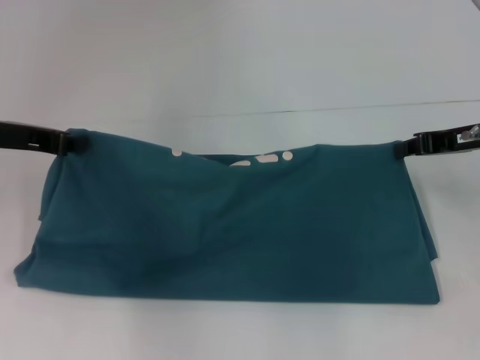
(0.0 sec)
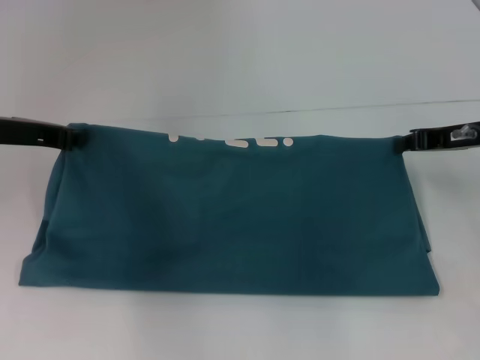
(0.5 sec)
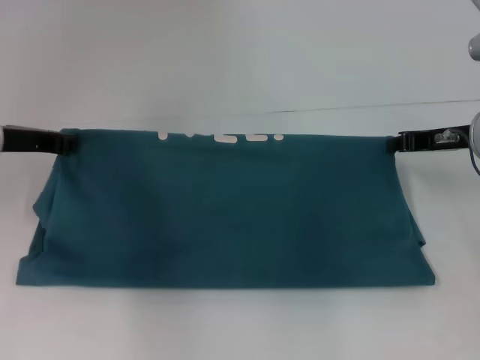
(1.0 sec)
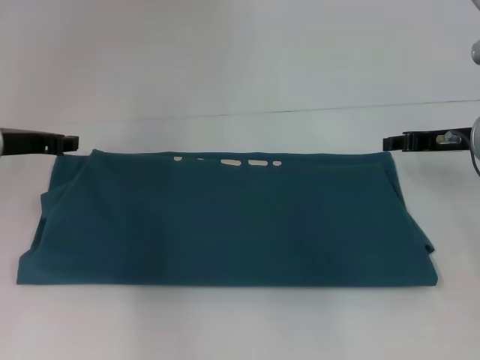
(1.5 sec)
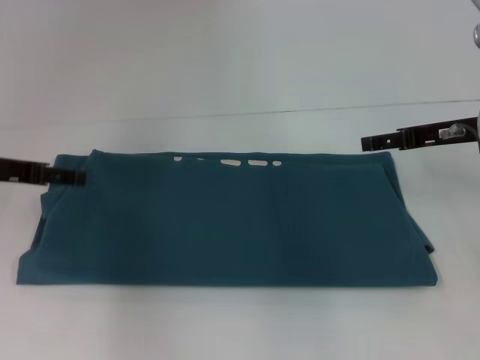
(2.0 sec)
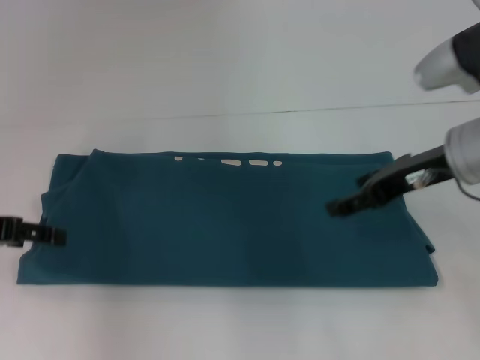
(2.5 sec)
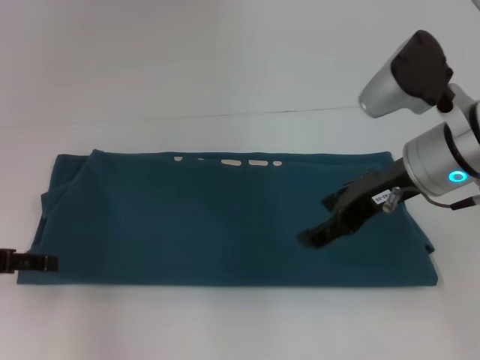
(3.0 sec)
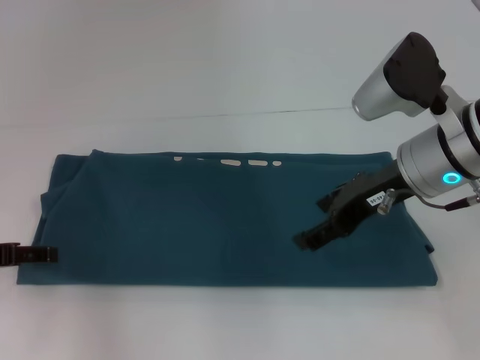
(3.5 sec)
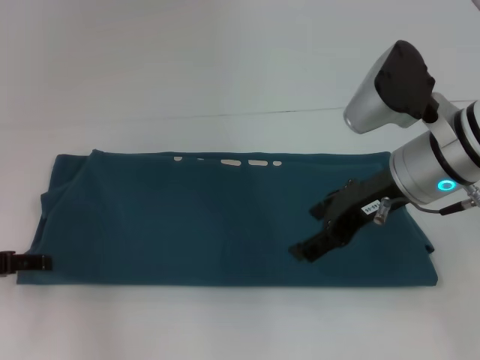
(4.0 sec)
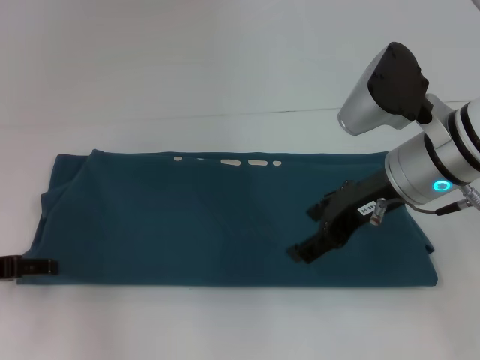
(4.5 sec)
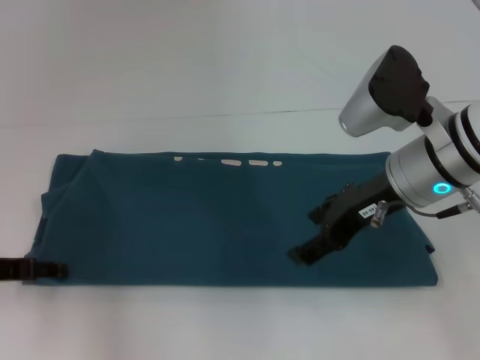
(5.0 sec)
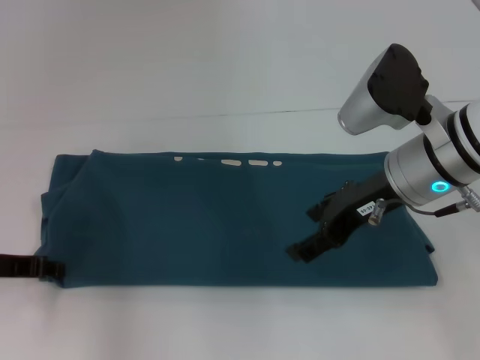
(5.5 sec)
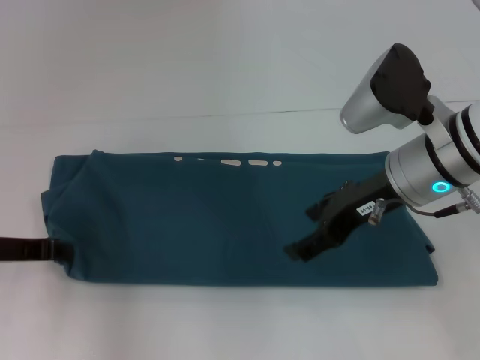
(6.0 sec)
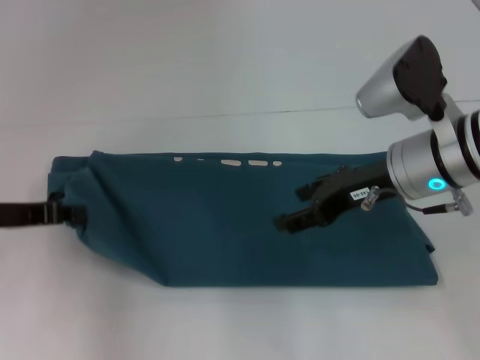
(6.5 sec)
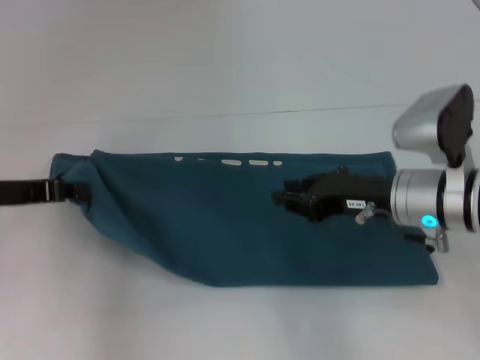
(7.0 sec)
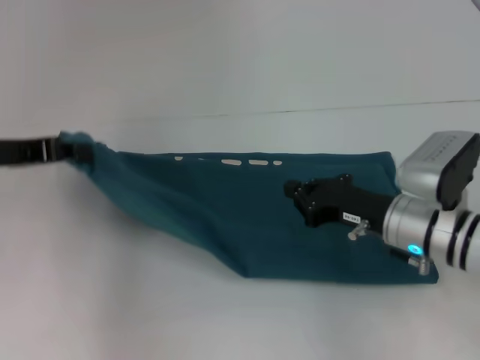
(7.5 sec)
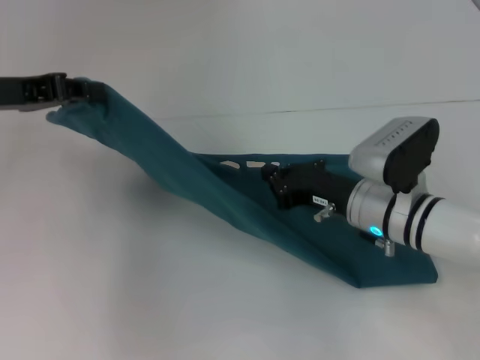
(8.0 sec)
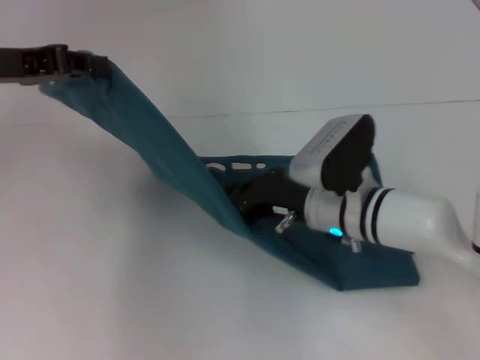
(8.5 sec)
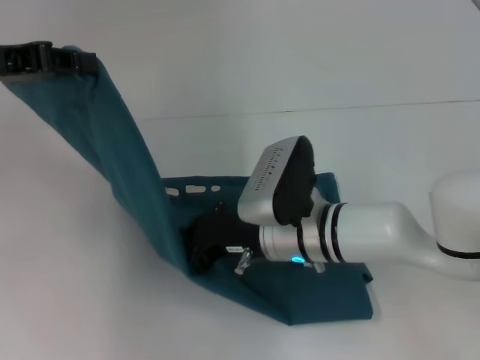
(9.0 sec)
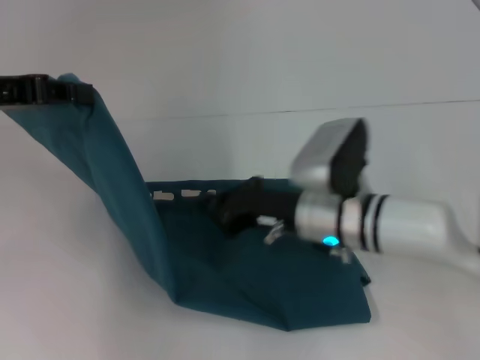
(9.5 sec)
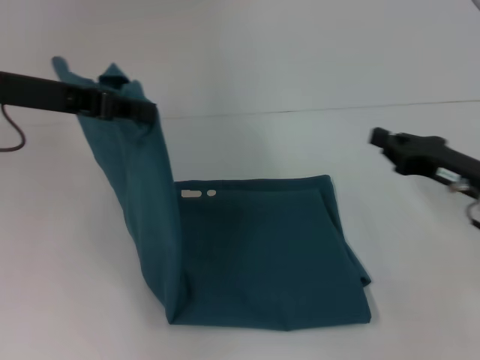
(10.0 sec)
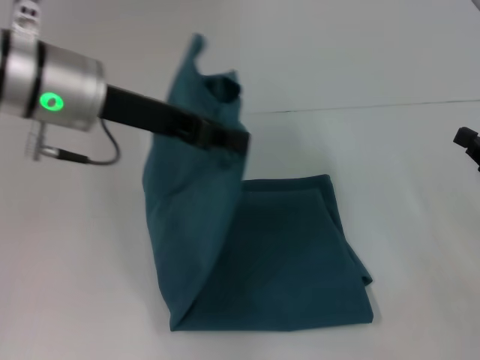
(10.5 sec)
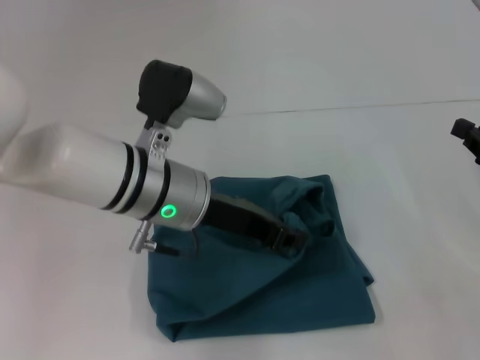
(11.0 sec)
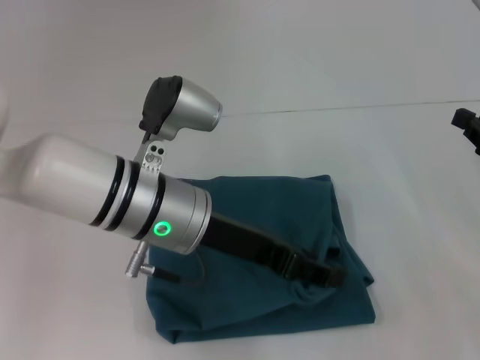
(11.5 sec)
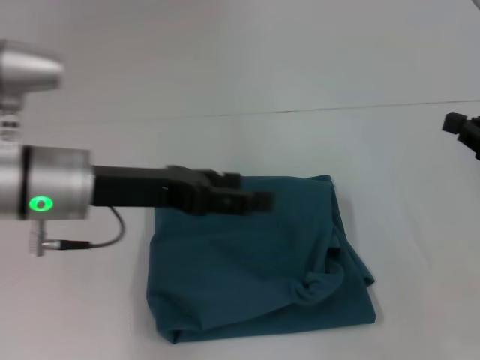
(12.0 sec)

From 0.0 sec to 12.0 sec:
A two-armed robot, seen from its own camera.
Step, from 2.0 sec to 8.5 sec: Press the middle of the clothes with your right hand.
Step, from 9.0 sec to 11.5 sec: Fold the clothes to the left.
From 0.0 sec to 2.0 sec: The right gripper opens its fingers; the left gripper opens its fingers.
From 2.0 sec to 4.0 sec: The left gripper is displaced backward and downward by approximately 10 cm, while the right gripper shifts about 10 cm to the left.
From 4.0 sec to 6.0 sec: The left gripper closes up.
From 6.0 sec to 8.0 sec: The right gripper heads downward, covering some 10 cm, and closes up. The left gripper travels upward and forward by about 15 cm.
From 8.0 sec to 10.0 sec: The right gripper heads to the right, covering some 10 cm.
From 10.0 sec to 12.0 sec: The left gripper shifts roughly 10 cm downward, to the right and backward, and opens its fingers, while the right gripper is displaced to the right and upward by about 10 cm.

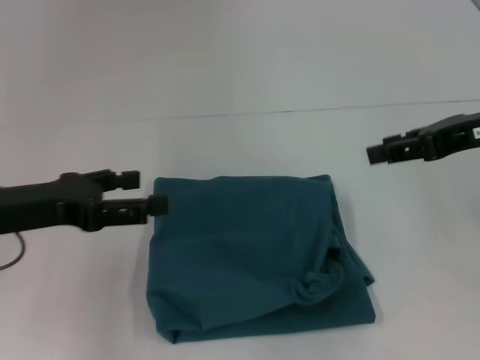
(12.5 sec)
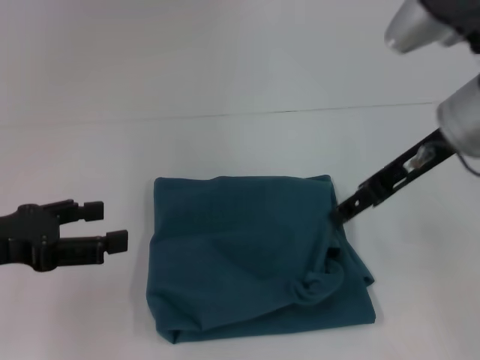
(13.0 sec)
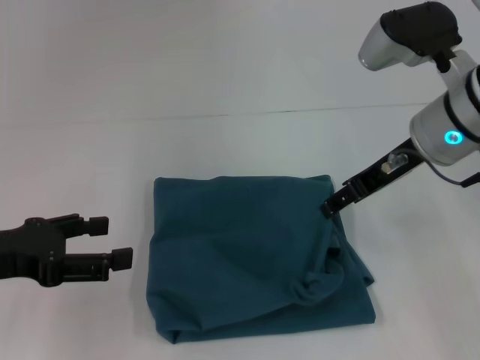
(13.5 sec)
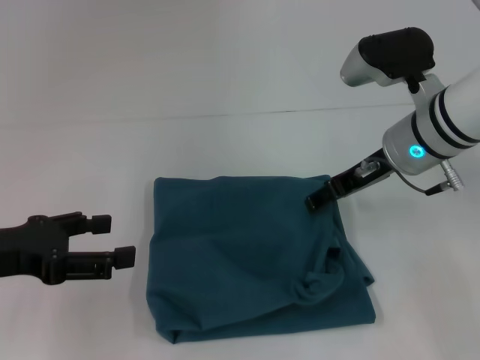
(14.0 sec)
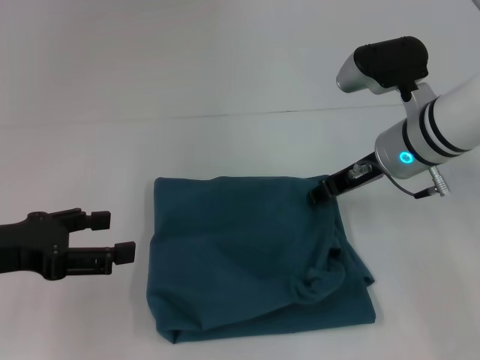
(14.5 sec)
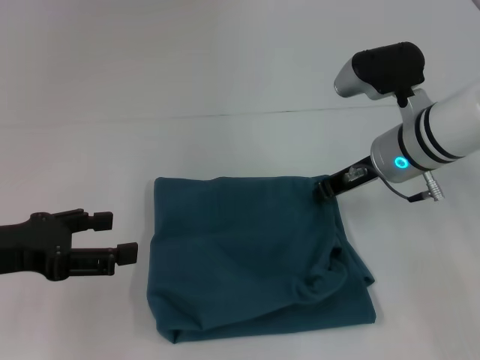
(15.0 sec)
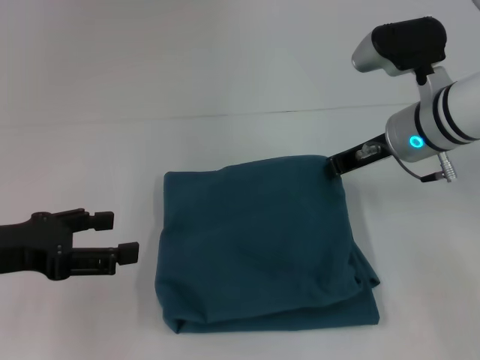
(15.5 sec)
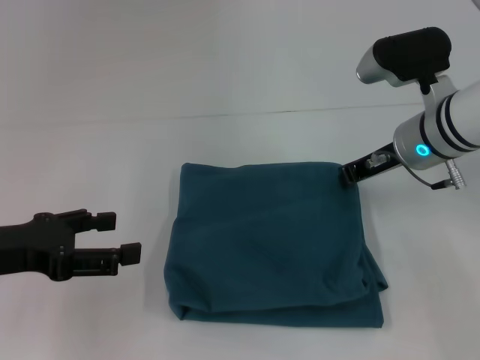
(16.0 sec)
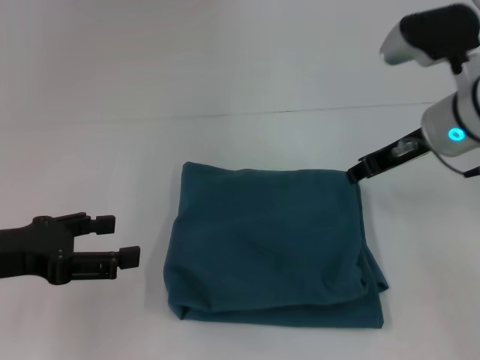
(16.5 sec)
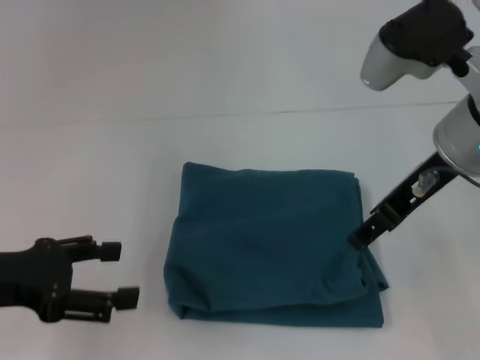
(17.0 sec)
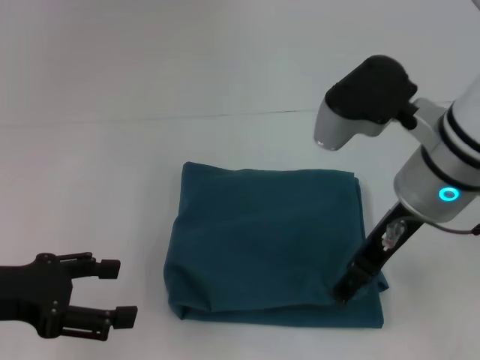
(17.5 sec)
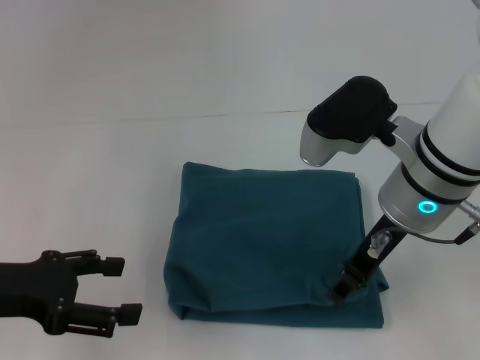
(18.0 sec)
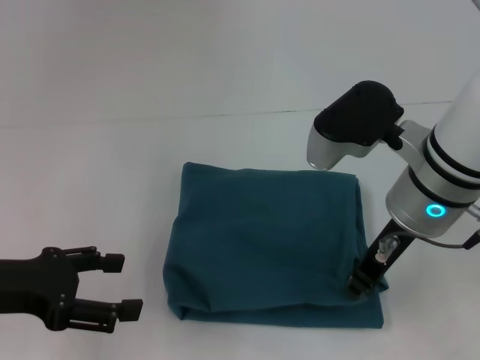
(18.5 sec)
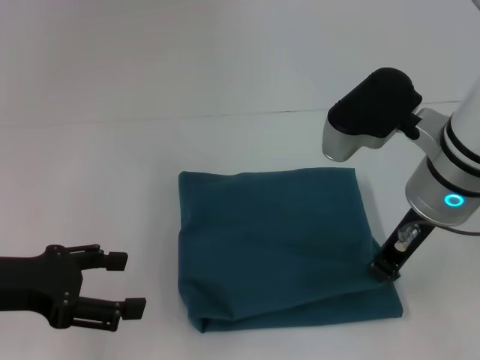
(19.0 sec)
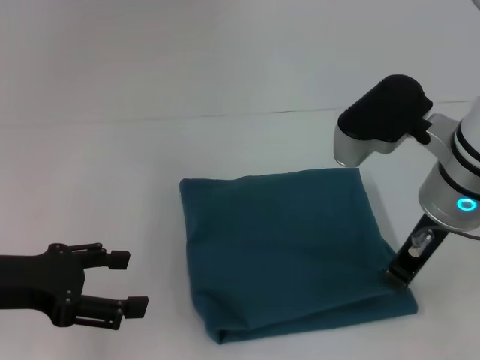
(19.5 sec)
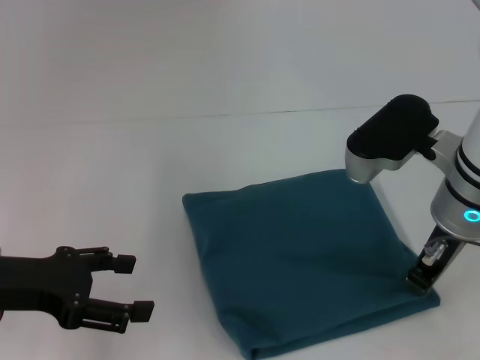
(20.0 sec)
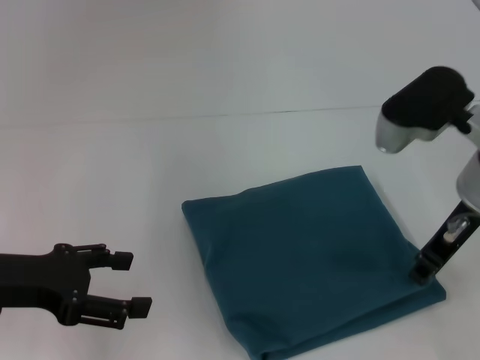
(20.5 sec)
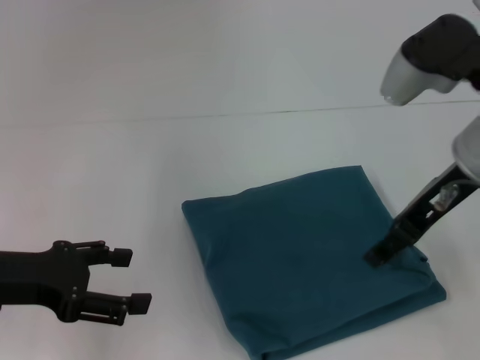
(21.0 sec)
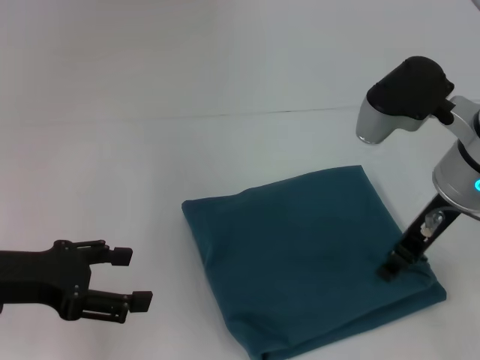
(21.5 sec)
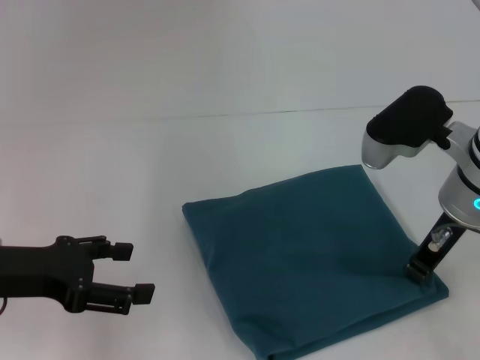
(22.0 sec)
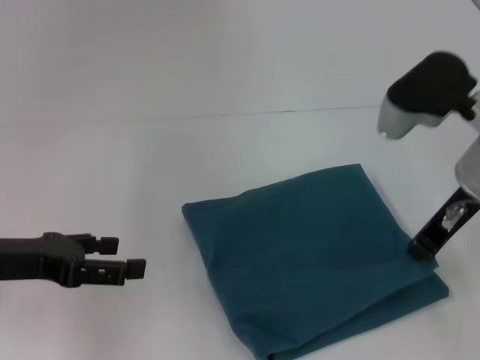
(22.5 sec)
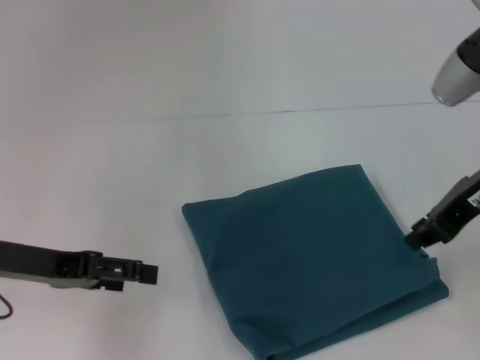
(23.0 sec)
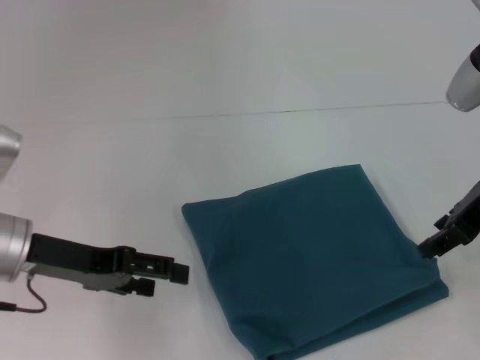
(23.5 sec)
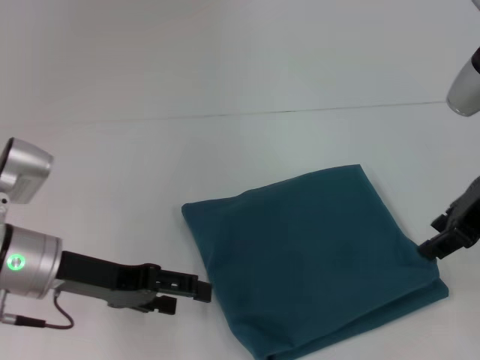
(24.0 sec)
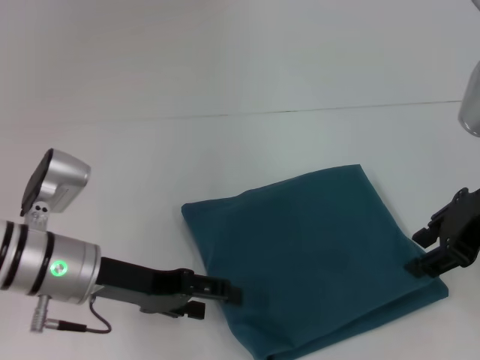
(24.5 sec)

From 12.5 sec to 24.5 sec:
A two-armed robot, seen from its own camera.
From 12.5 sec to 14.5 sec: The right gripper moves to the left, downward and forward, some 15 cm.
From 14.5 sec to 16.5 sec: The right gripper moves roughly 5 cm, and closes.
From 16.5 sec to 18.5 sec: The right gripper goes some 10 cm to the left and backward, and opens and closes again.
From 18.5 sec to 20.5 sec: The right gripper shifts about 5 cm to the right.
From 20.5 sec to 22.5 sec: The right gripper opens, then closes once more.
From 22.5 sec to 24.5 sec: The right gripper shifts by approximately 5 cm, and opens up. Meanwhile the left gripper travels to the right by some 10 cm.

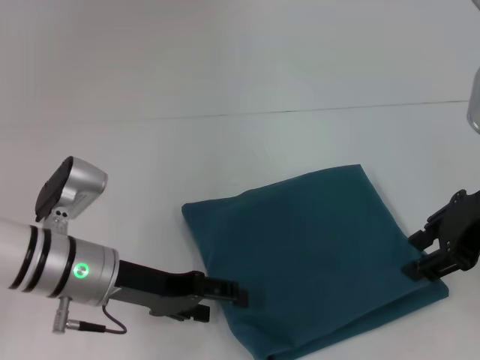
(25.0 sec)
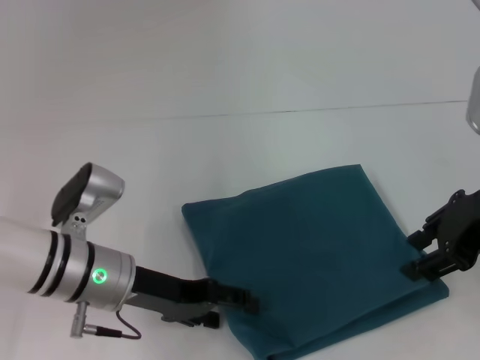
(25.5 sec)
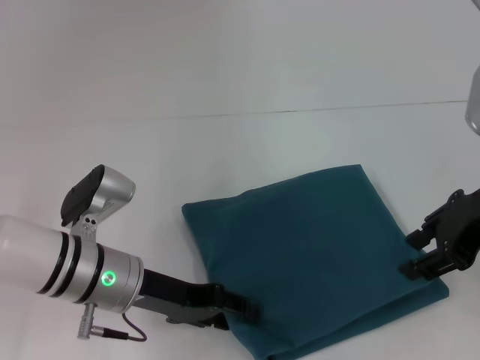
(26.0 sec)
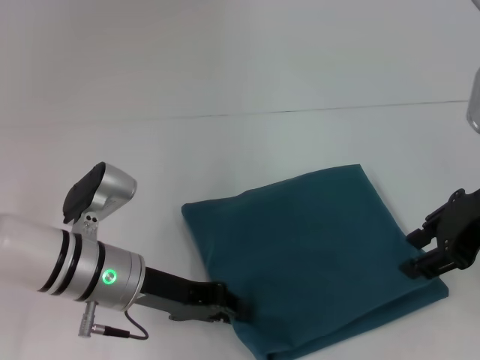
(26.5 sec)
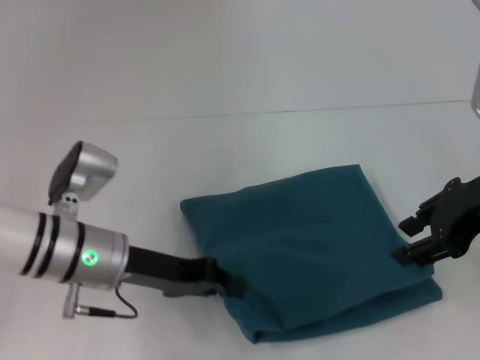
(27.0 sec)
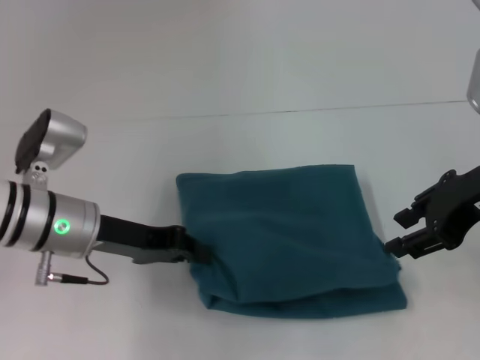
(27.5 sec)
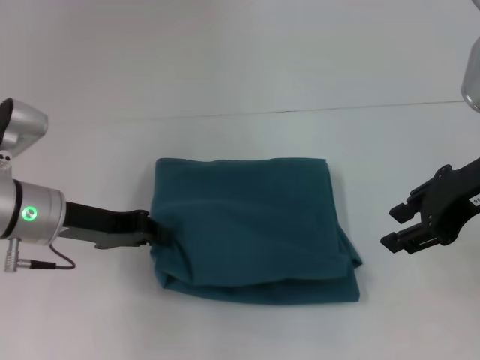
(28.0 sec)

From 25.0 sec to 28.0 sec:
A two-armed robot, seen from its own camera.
From 25.0 sec to 26.5 sec: The left gripper closes.
From 26.5 sec to 28.0 sec: The left gripper goes about 5 cm to the left, and closes.
